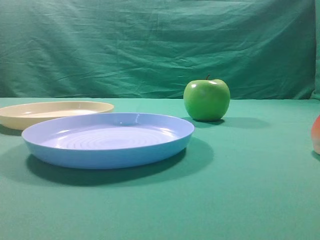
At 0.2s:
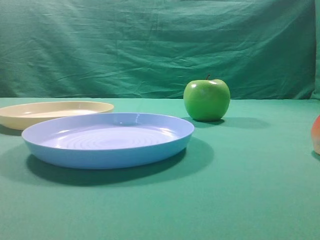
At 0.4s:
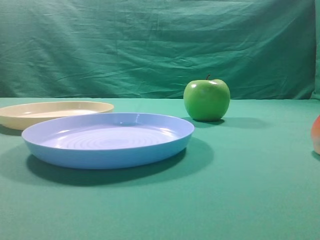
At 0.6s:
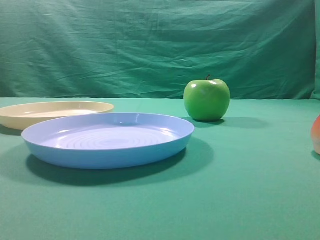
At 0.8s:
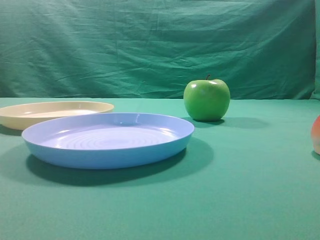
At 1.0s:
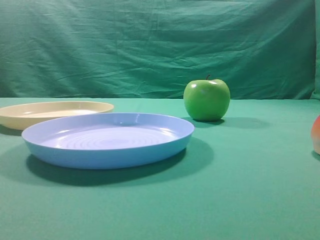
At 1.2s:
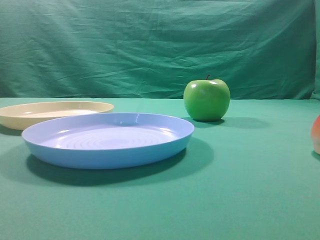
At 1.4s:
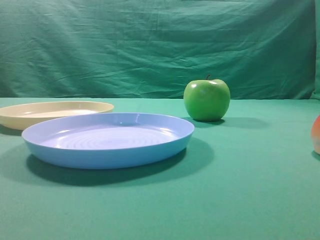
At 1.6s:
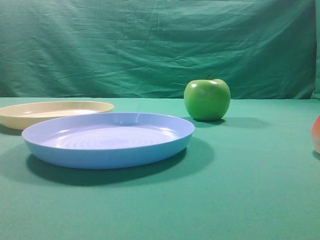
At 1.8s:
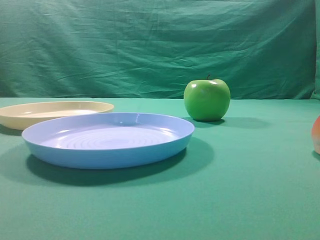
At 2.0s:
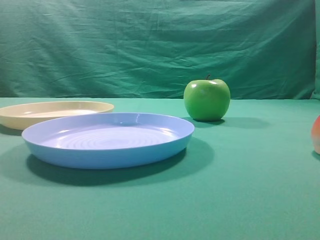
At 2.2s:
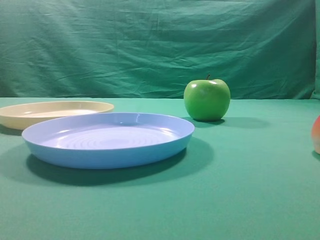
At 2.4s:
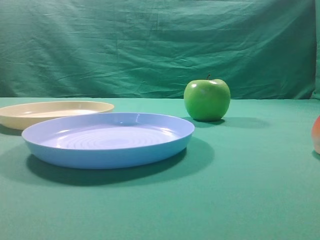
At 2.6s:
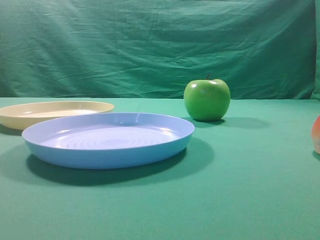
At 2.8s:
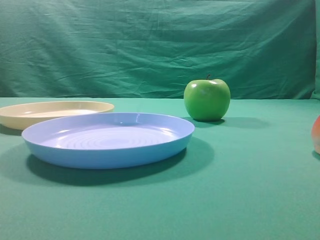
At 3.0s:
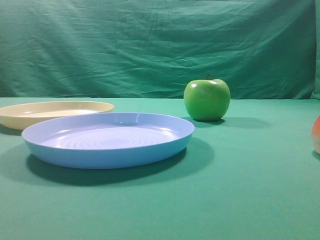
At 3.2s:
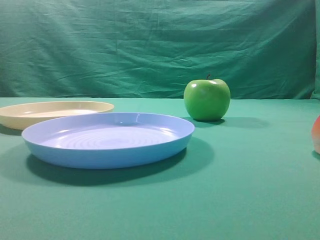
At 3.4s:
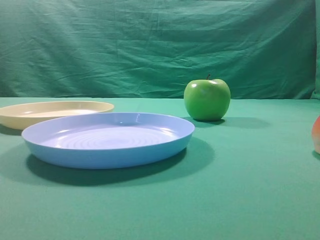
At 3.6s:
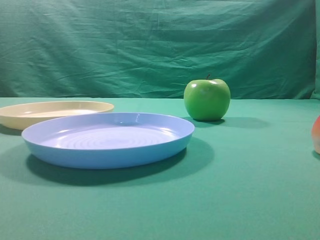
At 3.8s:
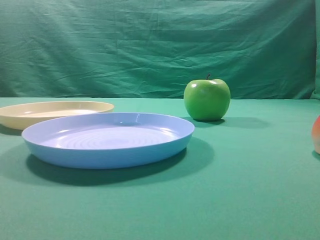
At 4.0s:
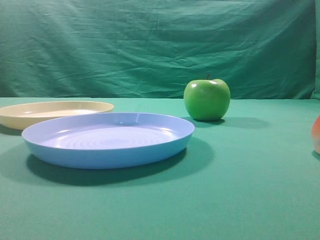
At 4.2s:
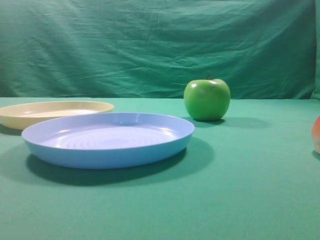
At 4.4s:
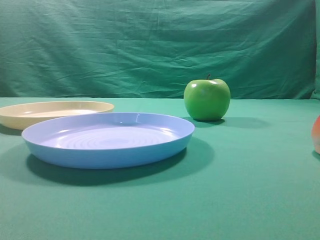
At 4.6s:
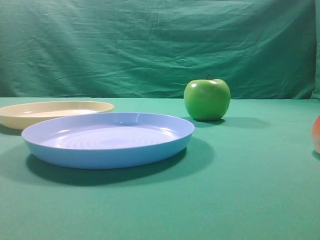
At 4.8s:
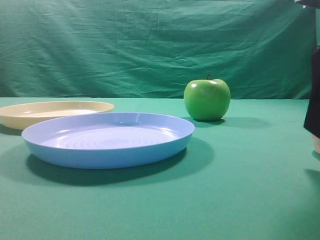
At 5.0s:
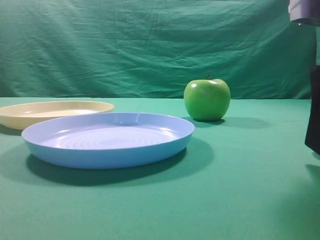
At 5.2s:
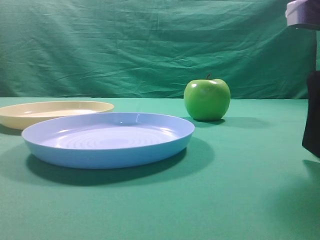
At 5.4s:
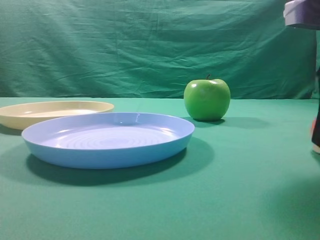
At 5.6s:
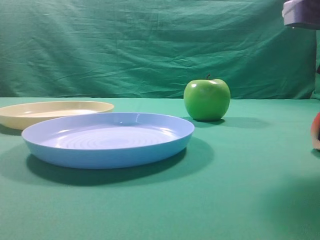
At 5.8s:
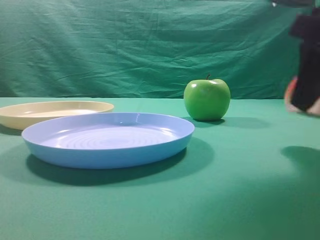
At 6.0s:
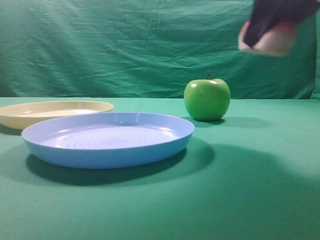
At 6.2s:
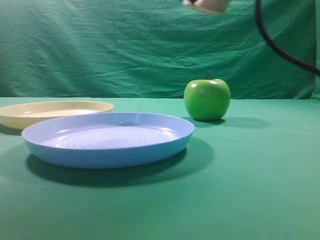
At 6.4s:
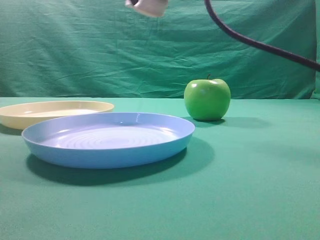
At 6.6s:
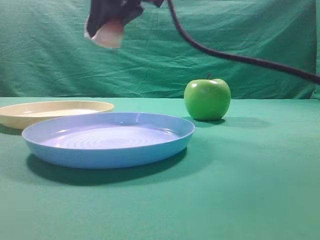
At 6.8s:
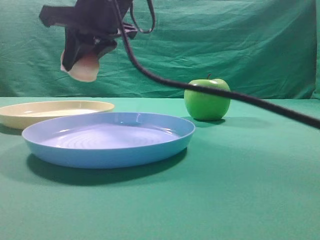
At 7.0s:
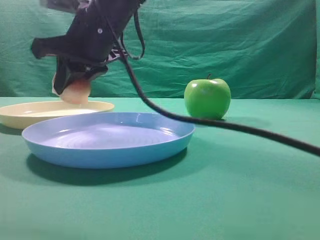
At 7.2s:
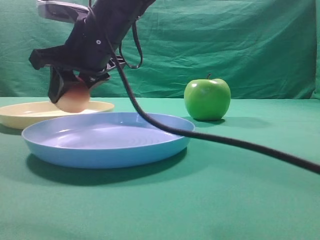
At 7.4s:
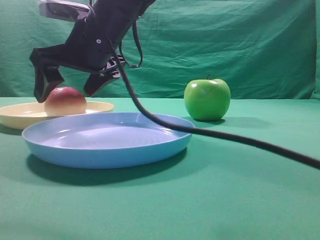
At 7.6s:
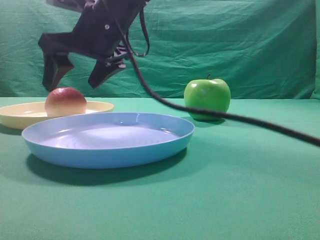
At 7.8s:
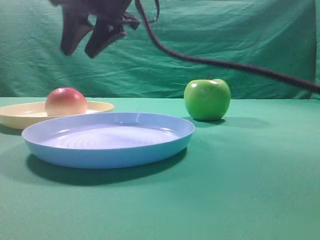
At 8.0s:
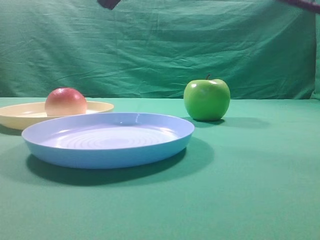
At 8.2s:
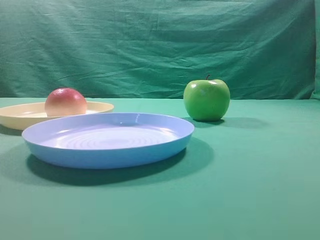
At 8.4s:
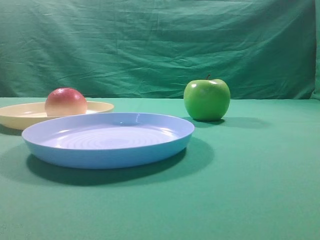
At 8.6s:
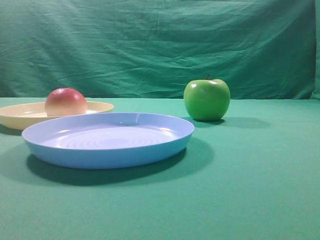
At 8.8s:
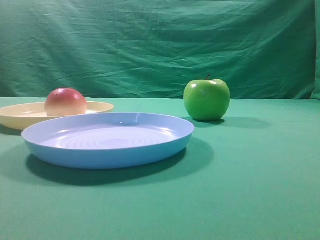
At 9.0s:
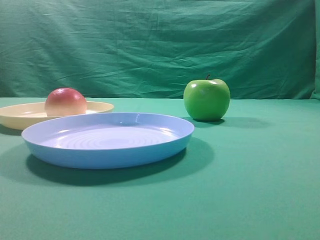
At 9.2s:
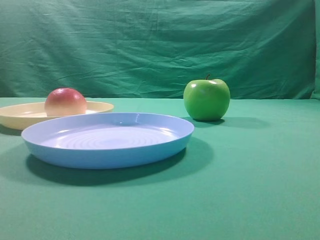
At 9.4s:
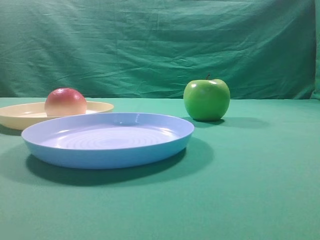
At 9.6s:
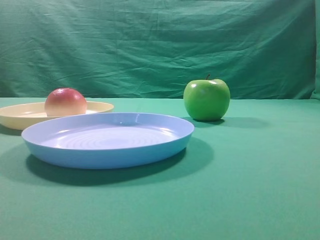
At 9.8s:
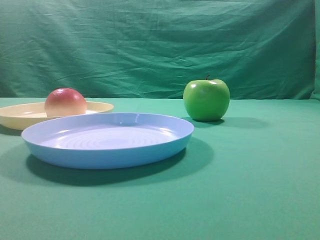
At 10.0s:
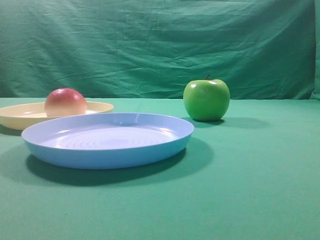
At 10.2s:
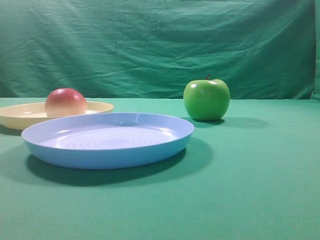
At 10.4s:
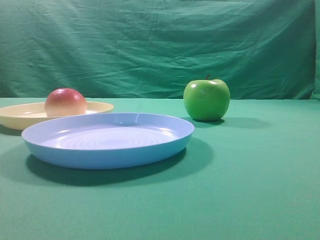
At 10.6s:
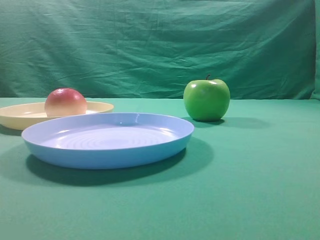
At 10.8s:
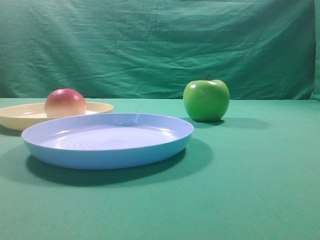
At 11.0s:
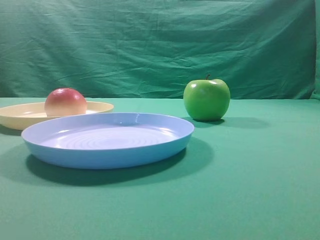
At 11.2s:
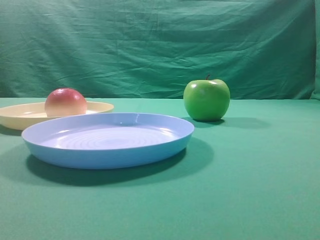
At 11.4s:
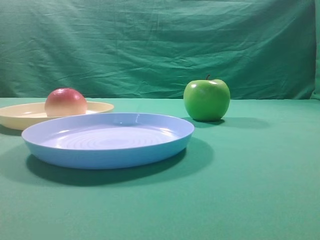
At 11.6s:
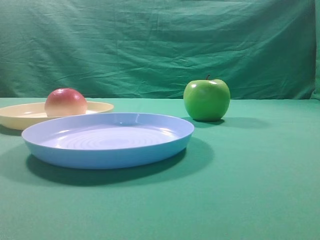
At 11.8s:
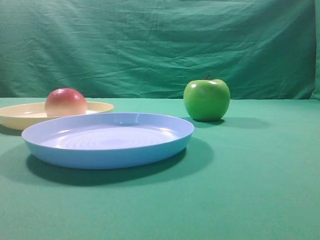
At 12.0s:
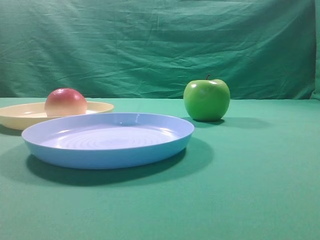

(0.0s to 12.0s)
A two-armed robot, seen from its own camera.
Step, 6.0s - 7.6s: Place the picked object on the yellow plate.
